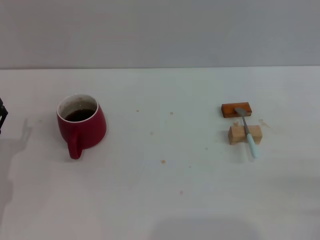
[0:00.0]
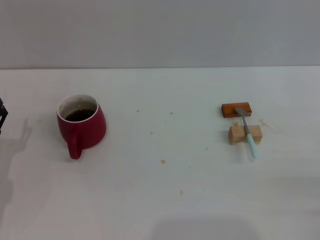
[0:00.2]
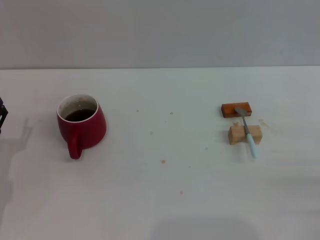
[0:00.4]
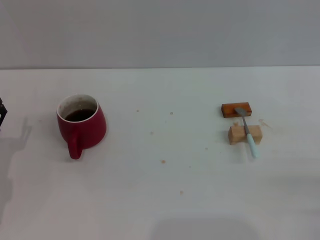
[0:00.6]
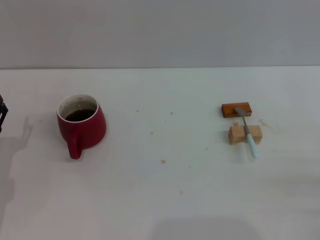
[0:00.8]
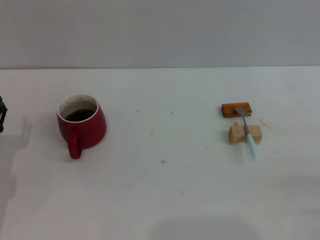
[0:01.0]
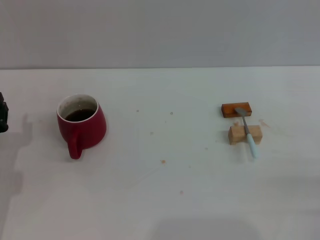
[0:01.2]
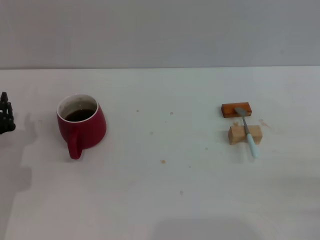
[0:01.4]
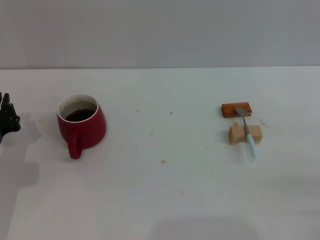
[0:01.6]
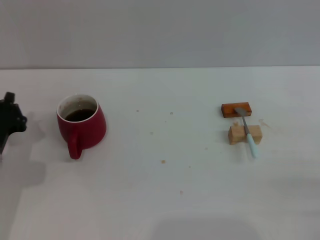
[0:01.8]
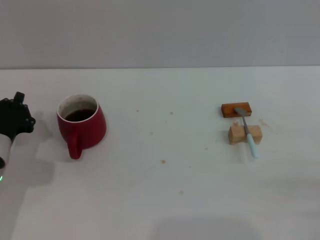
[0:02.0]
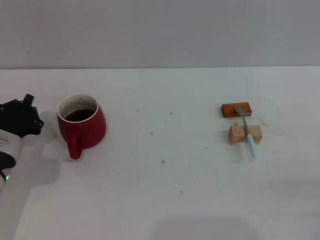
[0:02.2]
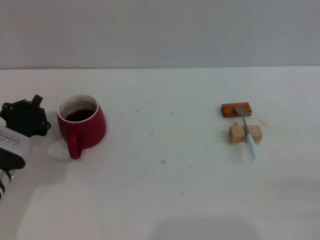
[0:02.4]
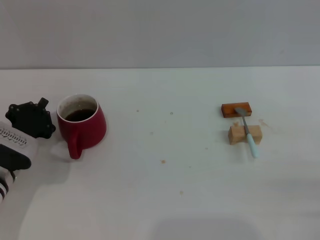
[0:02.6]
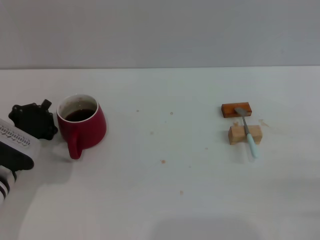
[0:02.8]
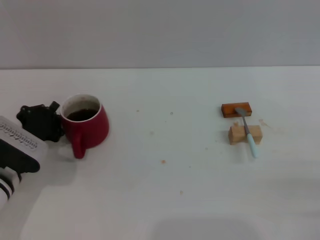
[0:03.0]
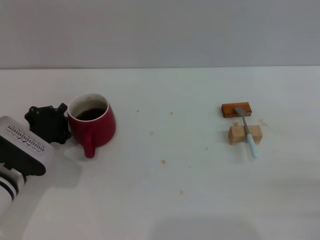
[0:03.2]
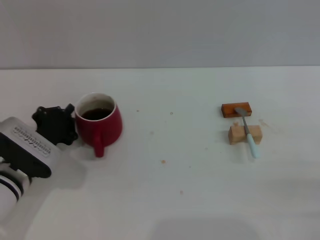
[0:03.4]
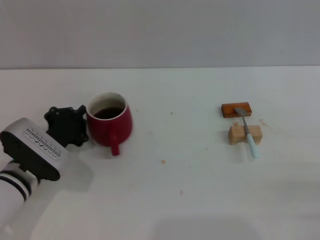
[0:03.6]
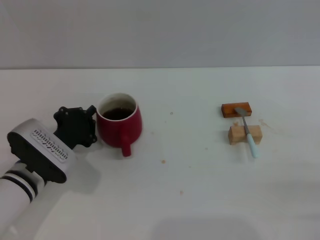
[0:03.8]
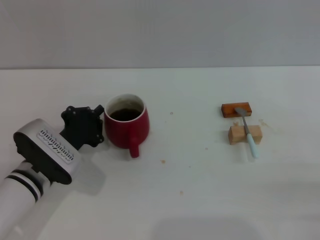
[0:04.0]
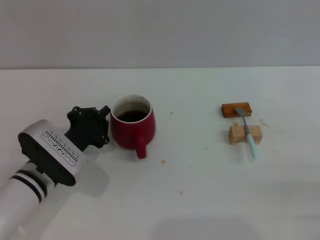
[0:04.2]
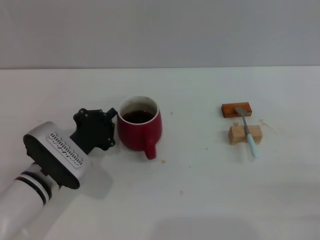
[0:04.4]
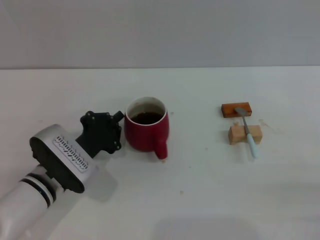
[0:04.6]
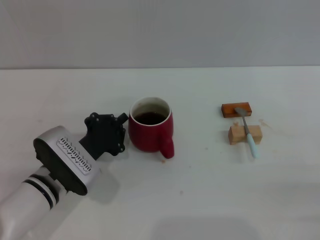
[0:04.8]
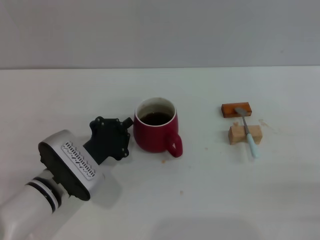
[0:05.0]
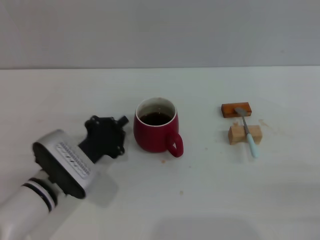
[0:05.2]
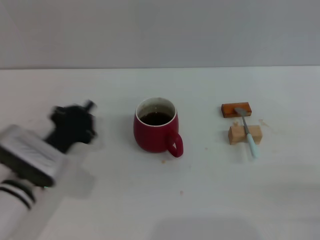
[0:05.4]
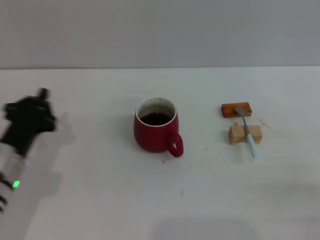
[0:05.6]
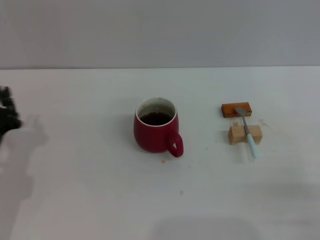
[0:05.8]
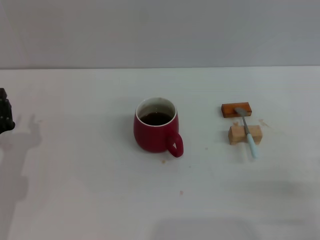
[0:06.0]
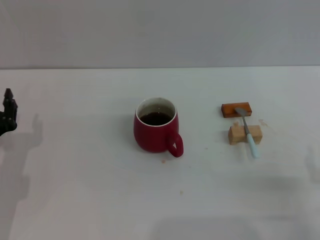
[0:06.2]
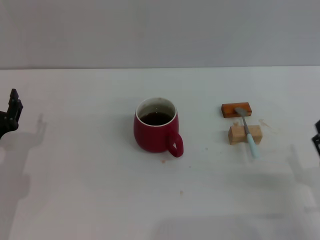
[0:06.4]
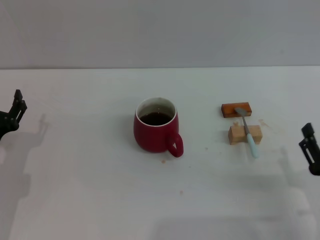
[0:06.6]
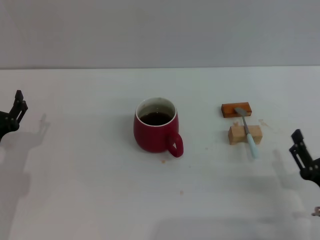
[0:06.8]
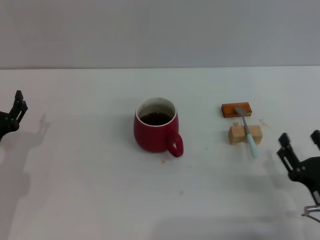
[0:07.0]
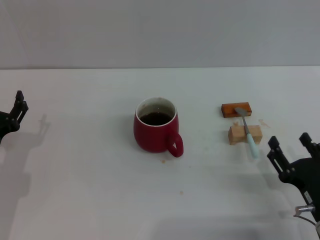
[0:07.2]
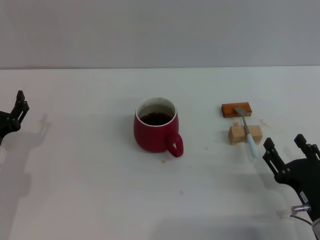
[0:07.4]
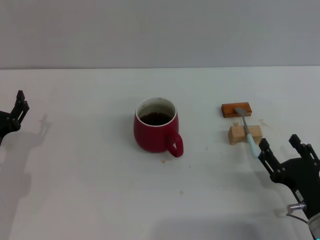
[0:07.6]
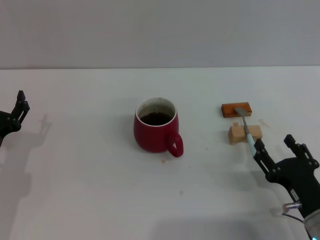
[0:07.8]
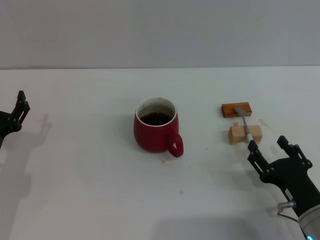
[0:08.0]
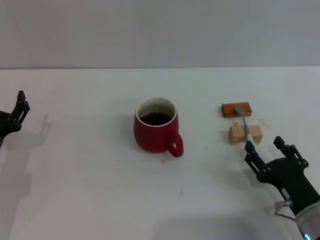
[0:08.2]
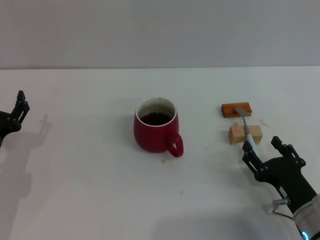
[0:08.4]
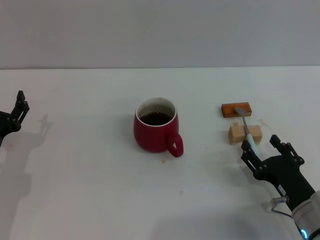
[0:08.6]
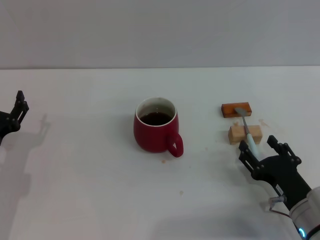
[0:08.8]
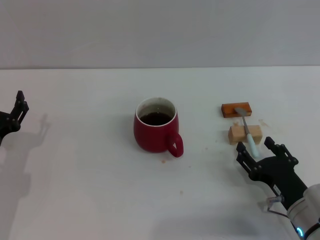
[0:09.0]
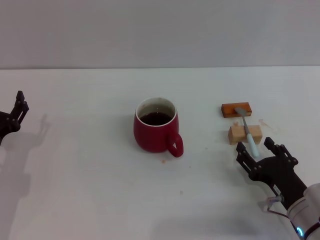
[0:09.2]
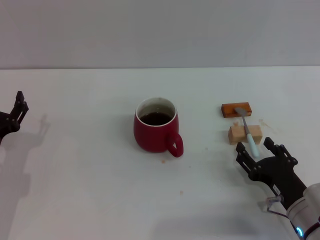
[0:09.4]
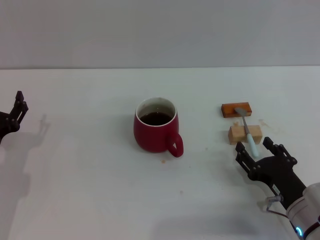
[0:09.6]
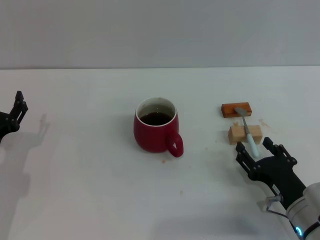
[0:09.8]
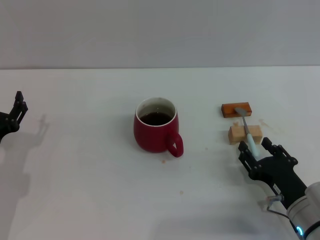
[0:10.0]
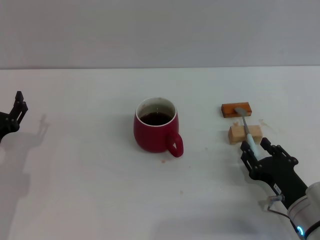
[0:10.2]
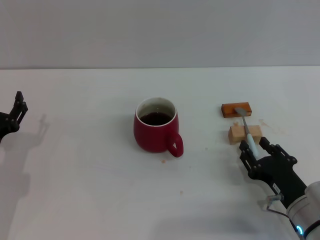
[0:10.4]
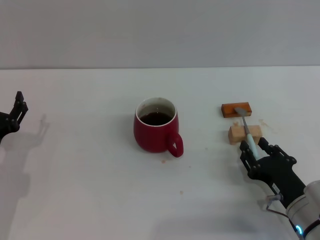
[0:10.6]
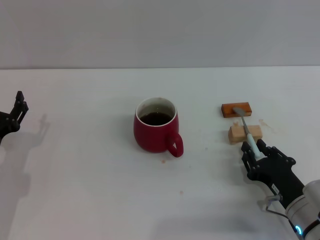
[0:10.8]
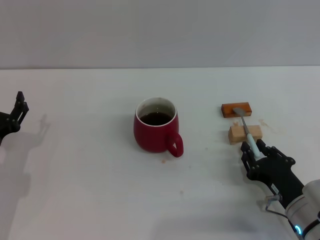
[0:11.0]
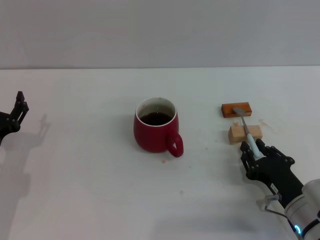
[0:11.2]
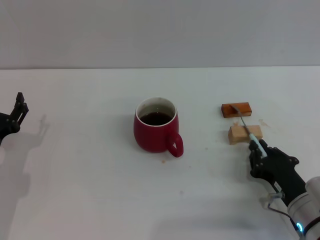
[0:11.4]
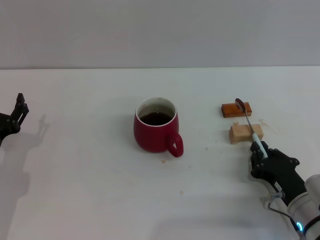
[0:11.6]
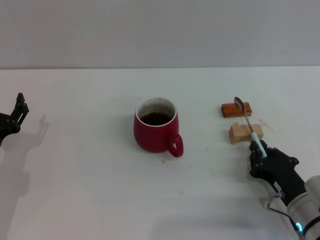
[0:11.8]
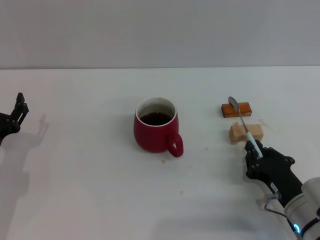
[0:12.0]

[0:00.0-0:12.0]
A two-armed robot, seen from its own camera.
Task of the whole recording: Move the red cup to the center, lift the blue spoon, stir it three times in the cup, and put the spoon into the cup.
Step, 0:00.0 to 0:05.2: Move the cup with coffee to the center of view with the left gripper.
0:00.0 to 0:01.6: The left gripper closes its fingers.
0:03.0 to 0:04.4: The left gripper shifts approximately 5 cm to the right.
0:04.4 to 0:06.0: The left gripper travels to the left by about 10 cm.
0:06.0 to 0:07.6: The right gripper is displaced to the left by some 5 cm, while the left gripper opens its fingers.
0:07.6 to 0:09.0: The grippers move only a little.
0:09.0 to 0:10.4: The right gripper closes up.
0:10.4 to 0:12.0: The right gripper closes its fingers.

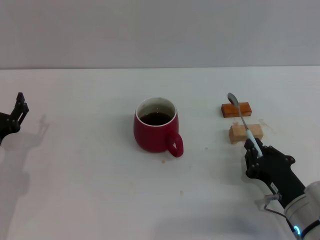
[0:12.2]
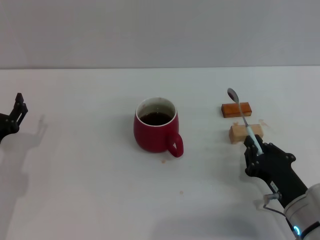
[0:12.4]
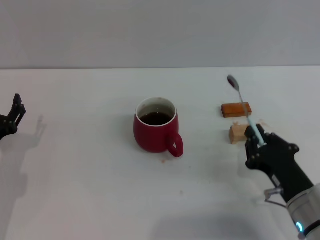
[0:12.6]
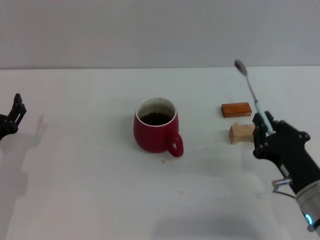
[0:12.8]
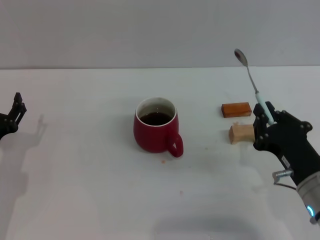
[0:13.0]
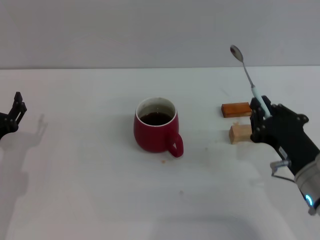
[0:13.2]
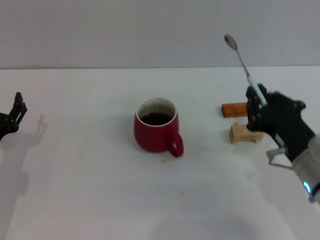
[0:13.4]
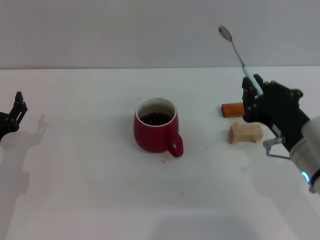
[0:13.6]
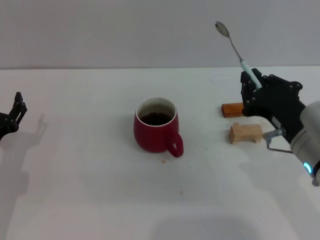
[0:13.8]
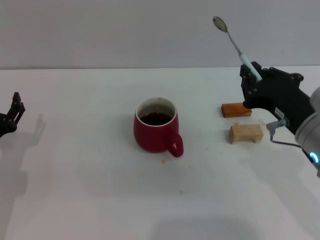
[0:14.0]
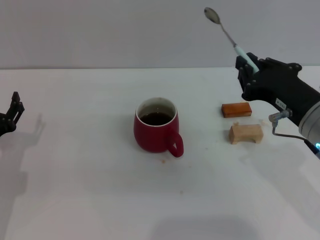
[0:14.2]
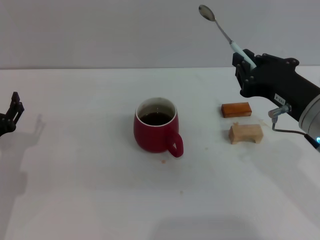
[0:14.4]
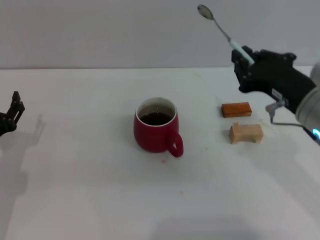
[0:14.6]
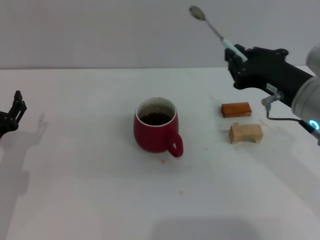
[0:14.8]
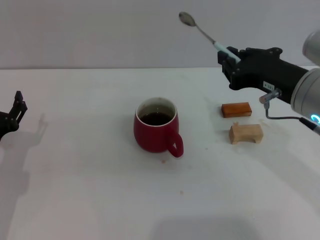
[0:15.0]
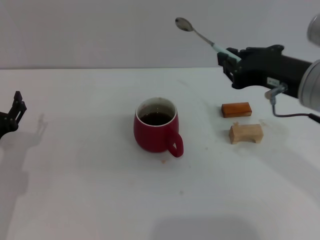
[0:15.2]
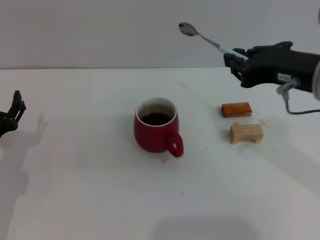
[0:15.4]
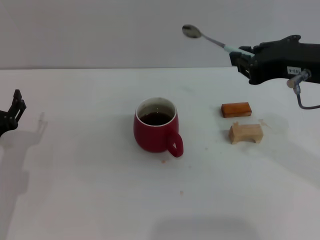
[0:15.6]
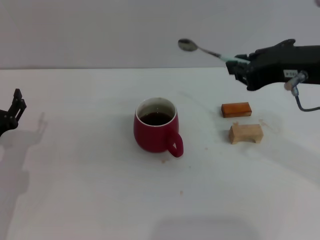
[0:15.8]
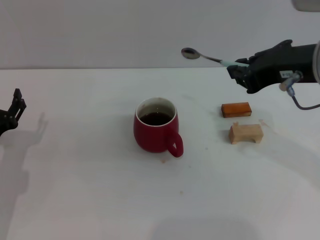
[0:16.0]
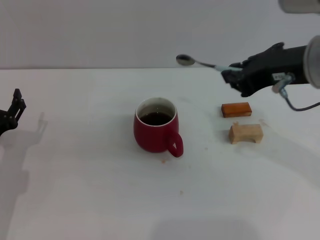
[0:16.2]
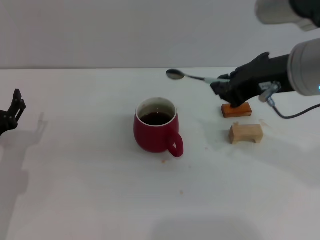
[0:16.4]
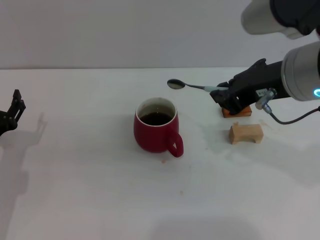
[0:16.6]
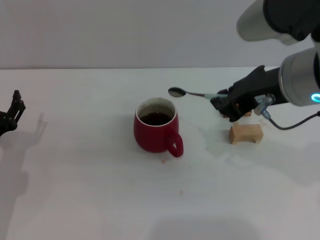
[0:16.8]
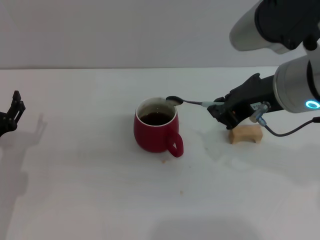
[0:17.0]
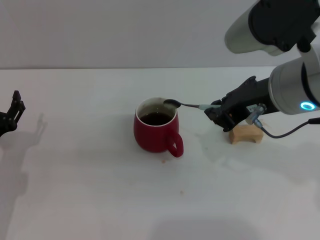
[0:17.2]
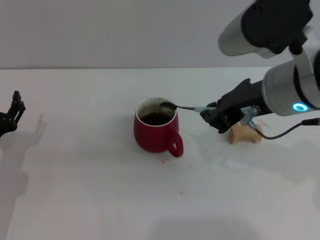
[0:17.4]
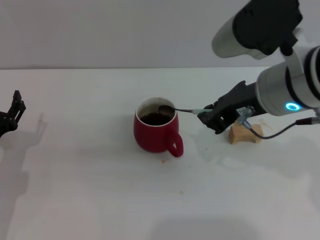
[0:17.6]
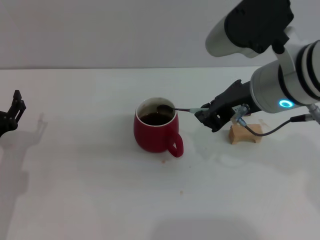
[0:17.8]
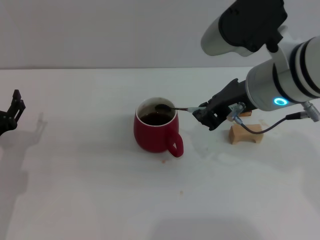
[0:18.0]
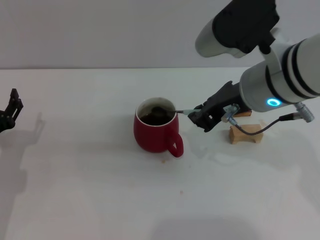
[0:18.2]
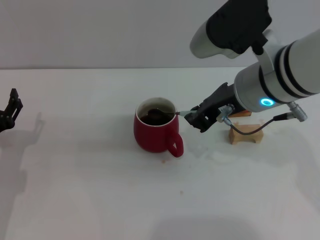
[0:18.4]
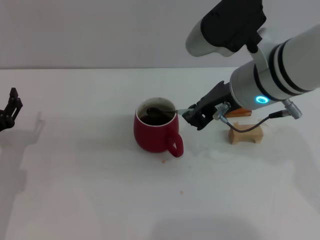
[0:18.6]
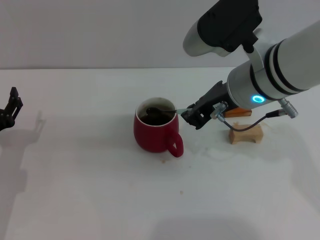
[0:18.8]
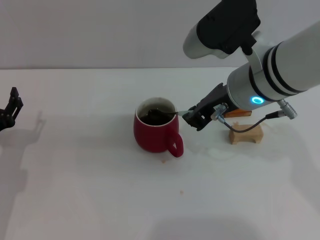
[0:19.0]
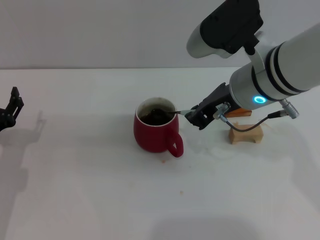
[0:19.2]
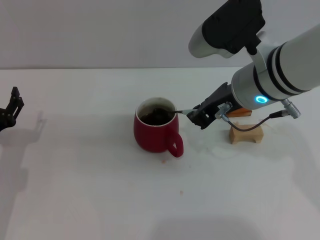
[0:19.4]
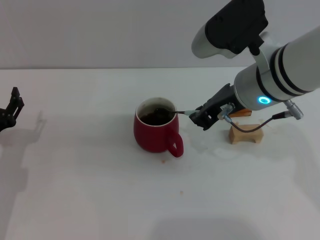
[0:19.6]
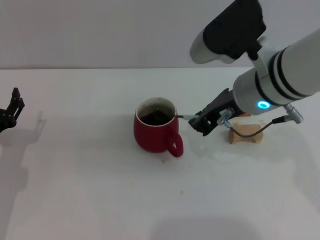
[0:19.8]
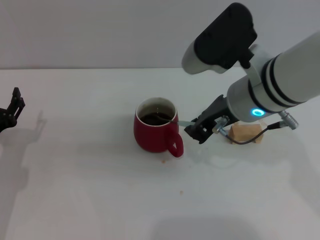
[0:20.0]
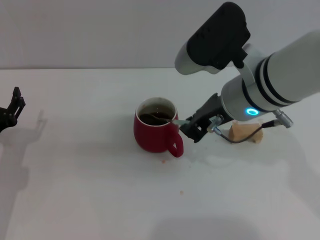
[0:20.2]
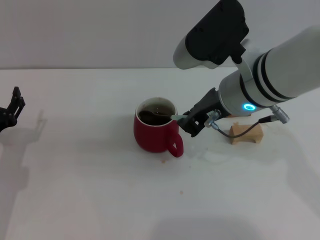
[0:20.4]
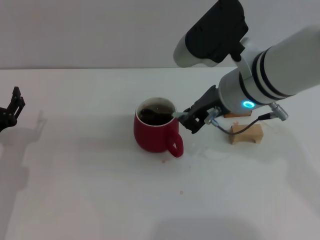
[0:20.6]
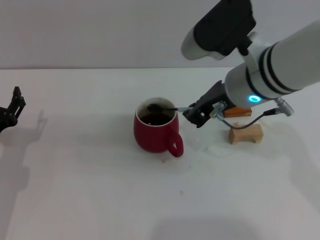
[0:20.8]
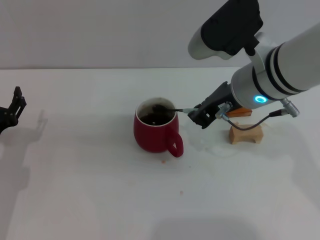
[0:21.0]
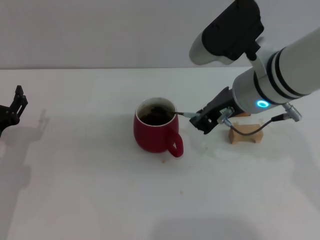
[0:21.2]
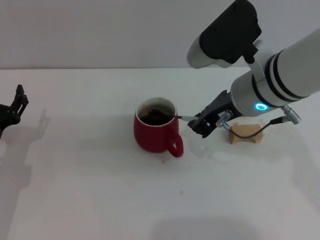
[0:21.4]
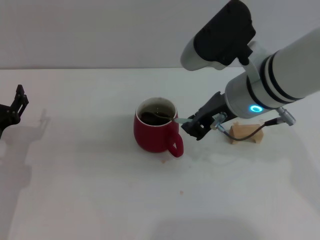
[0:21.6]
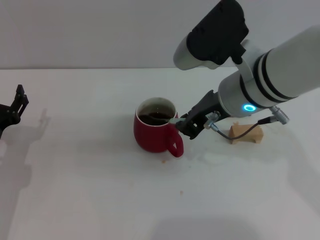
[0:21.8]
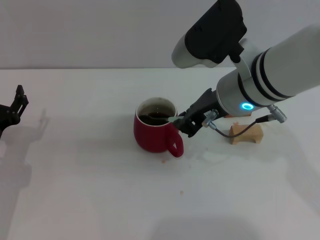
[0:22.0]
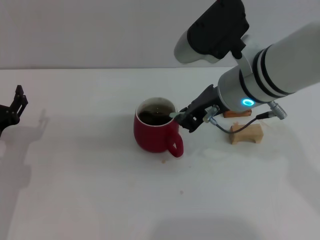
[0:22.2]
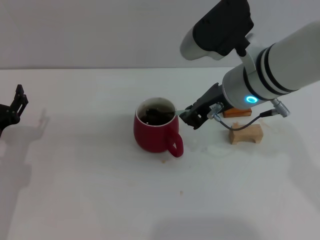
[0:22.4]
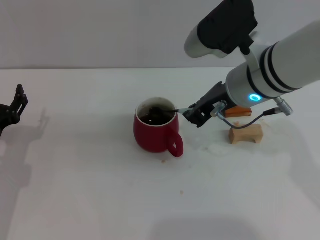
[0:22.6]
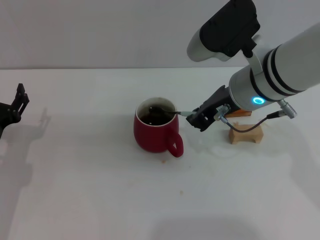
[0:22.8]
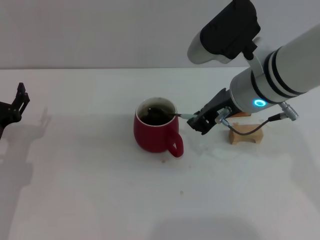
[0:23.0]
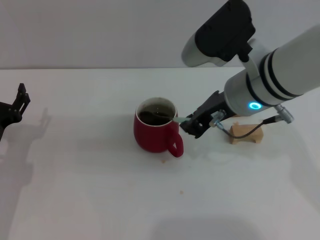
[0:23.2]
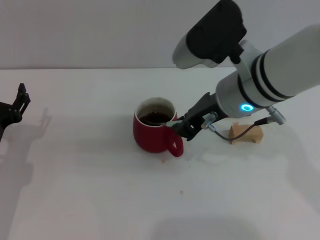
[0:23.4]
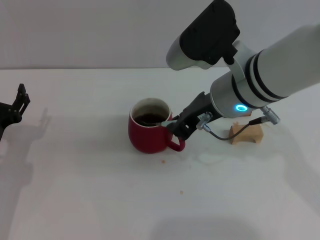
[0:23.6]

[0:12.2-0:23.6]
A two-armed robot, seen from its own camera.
Task of the whole recording: Move the red cup to the center, lift the blue spoon, stir it three times in the cup, and put the spoon into the cup.
0:12.2 to 0:13.6: The right gripper goes roughly 15 cm upward.
0:13.6 to 0:15.0: The right gripper travels upward by roughly 10 cm.
0:15.0 to 0:16.4: The right gripper moves upward, roughly 5 cm.
0:16.4 to 0:17.8: There are only small adjustments of the grippers.
0:17.8 to 0:23.6: The grippers stay close to where they were, moving slightly.
